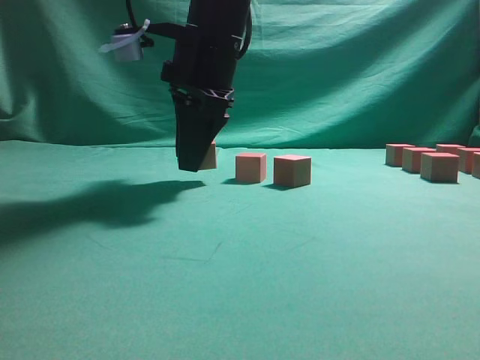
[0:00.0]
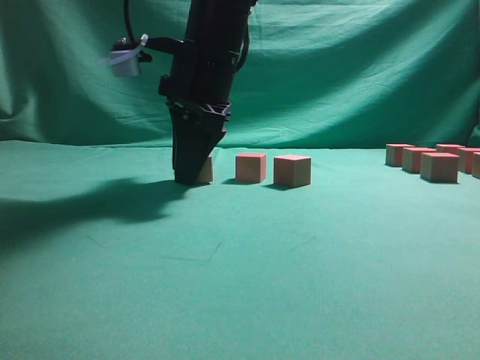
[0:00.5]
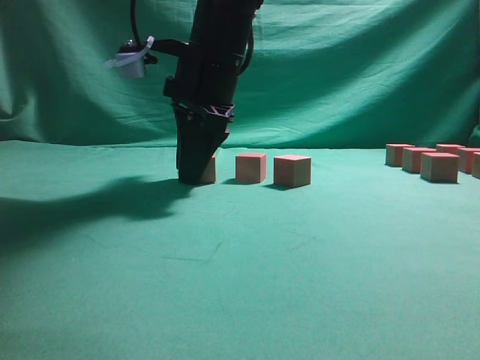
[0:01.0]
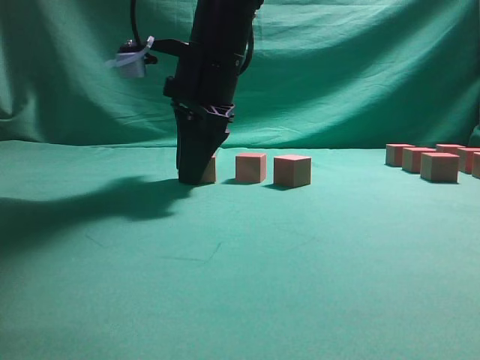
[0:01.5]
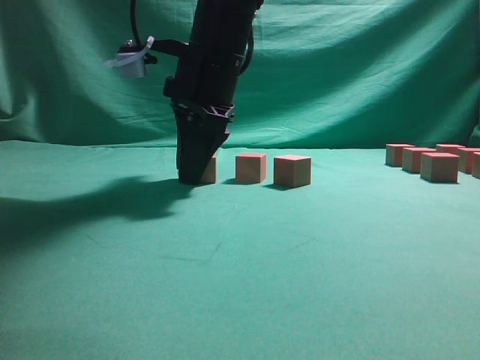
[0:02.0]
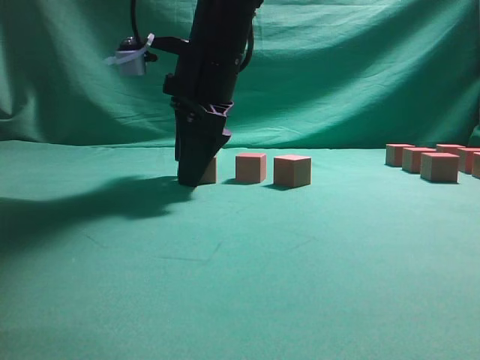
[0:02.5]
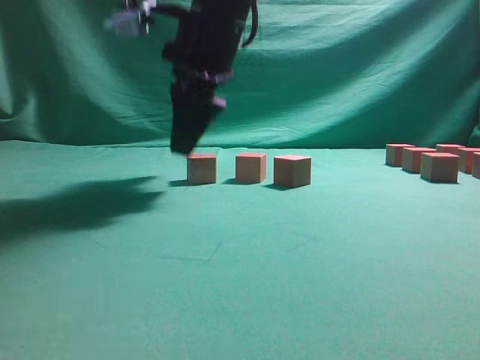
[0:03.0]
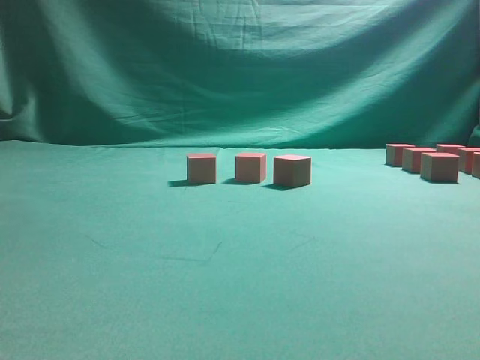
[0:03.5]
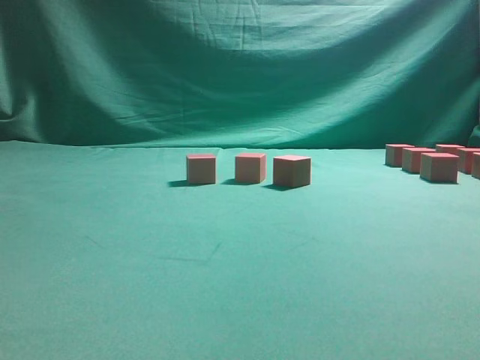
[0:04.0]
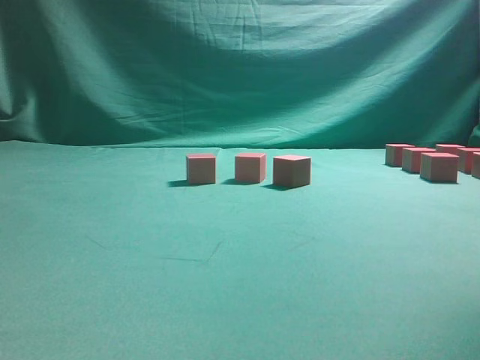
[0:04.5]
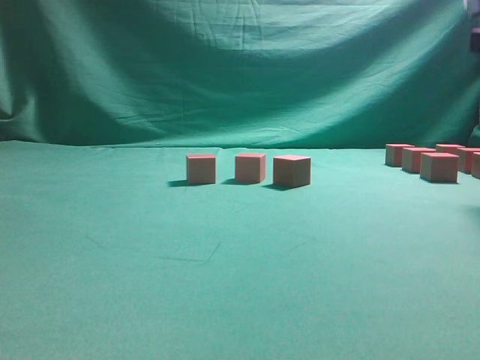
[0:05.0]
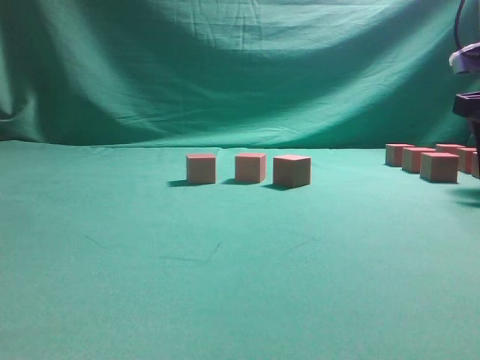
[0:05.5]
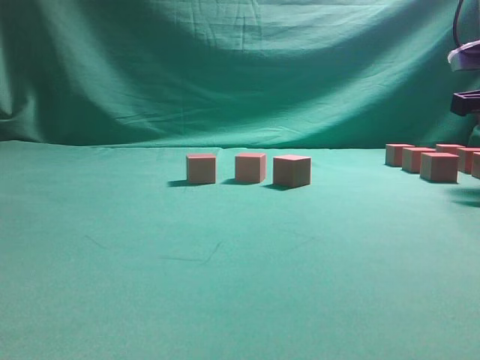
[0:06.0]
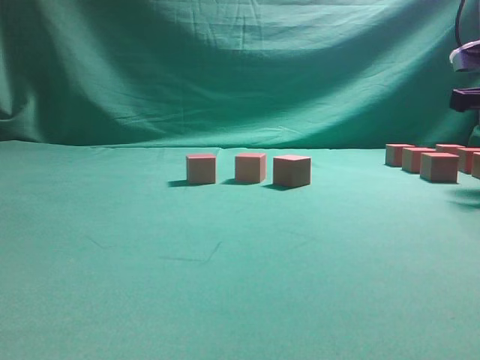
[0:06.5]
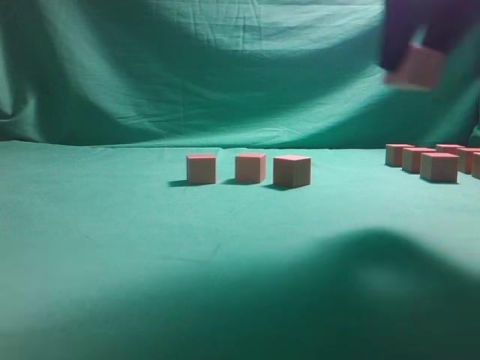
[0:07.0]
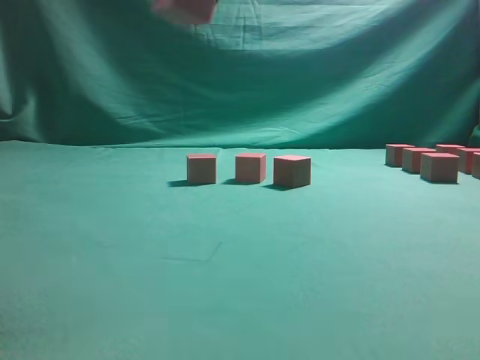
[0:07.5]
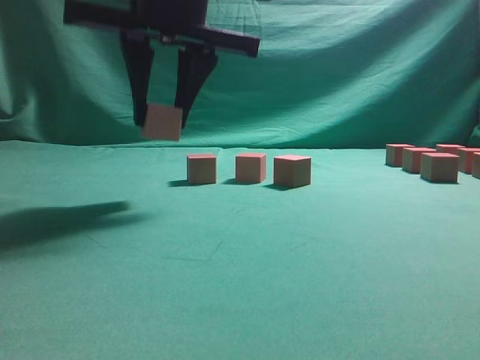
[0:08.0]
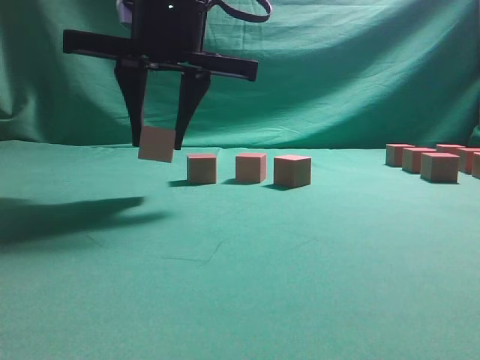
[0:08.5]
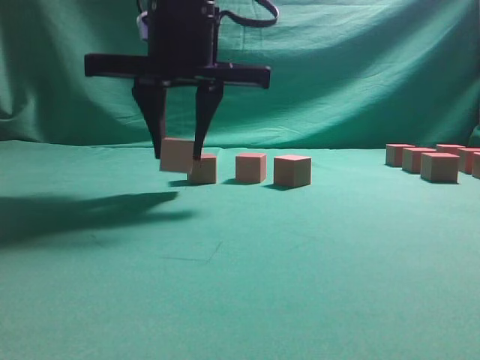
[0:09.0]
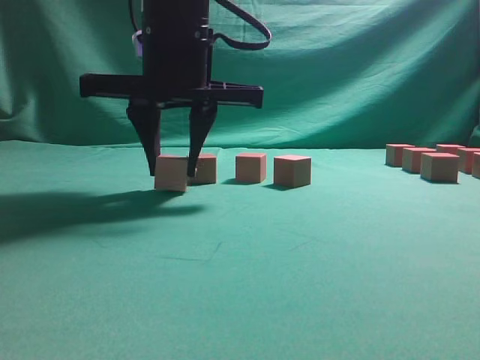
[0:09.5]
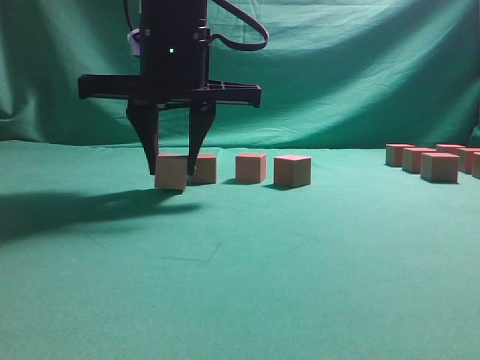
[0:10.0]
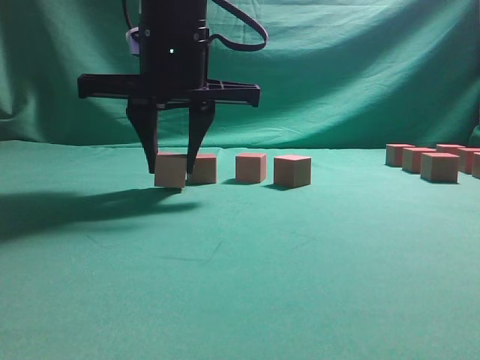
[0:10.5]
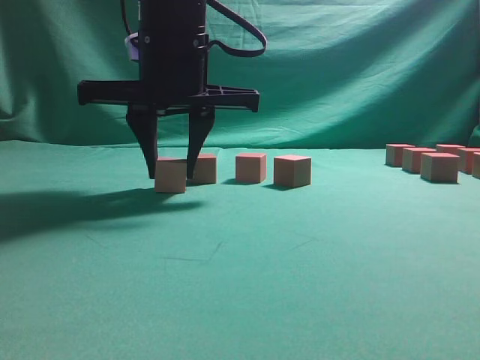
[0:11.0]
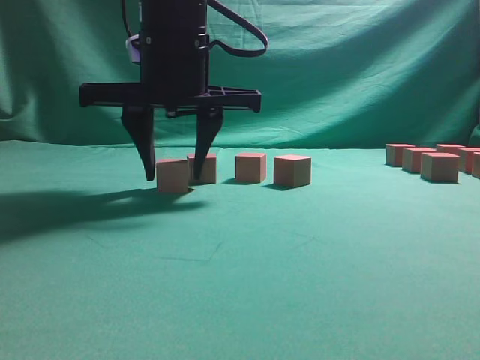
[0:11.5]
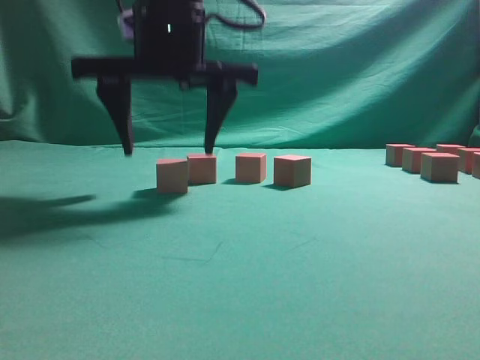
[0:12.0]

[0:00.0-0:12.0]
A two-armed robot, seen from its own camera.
Task of the whole recording: pick up the multiple cubes in two columns one by one and place them in another position on the table.
Step, 0:00.0 to 0:03.0: Place the block at the correct position to assemble the letter S.
Step, 0:03.5 to 0:06.5: Pick up the block on the table.
0:00.0 to 0:02.0: There are only small adjustments of the grippers.
0:02.0 to 0:04.0: The right gripper moves upward and to the right, about 30 cm, and opens its fingers.
0:04.0 to 0:06.0: The right gripper travels downward and to the right by about 35 cm.
0:06.0 to 0:08.0: The right gripper shifts some 35 cm to the left.
0:10.0 to 0:12.0: The right gripper opens its fingers.

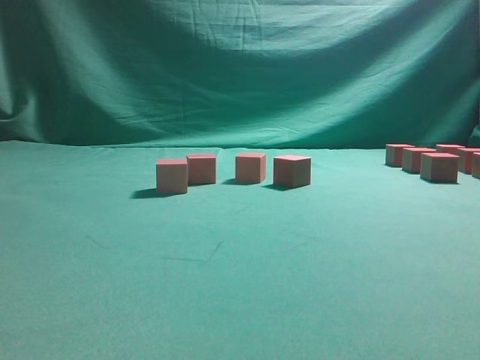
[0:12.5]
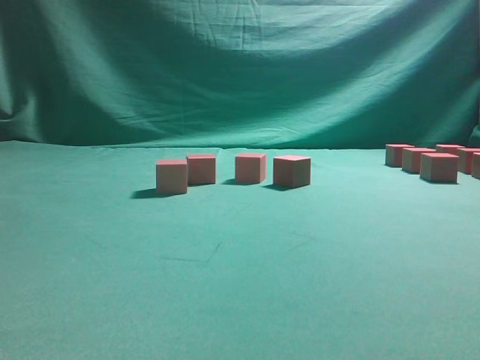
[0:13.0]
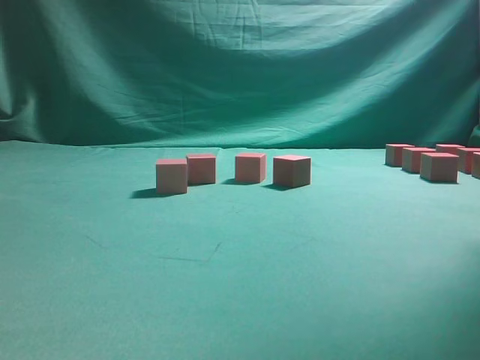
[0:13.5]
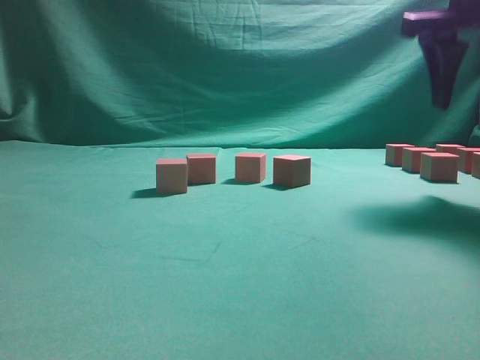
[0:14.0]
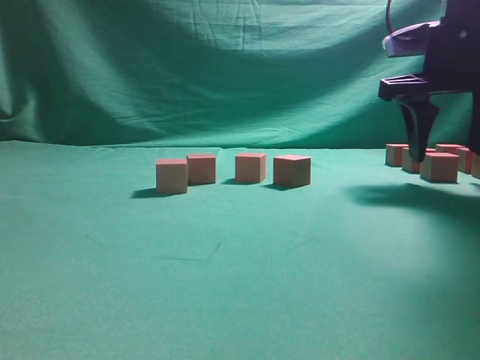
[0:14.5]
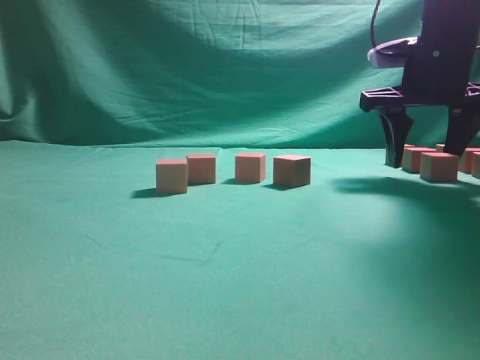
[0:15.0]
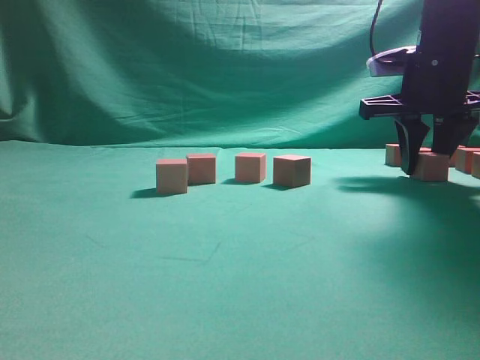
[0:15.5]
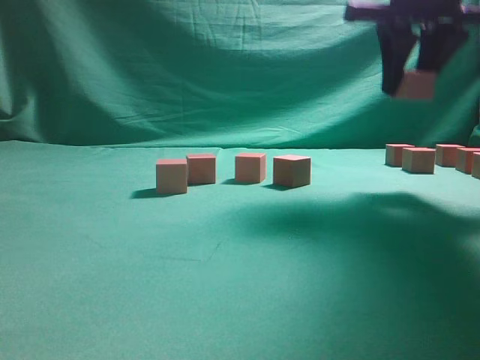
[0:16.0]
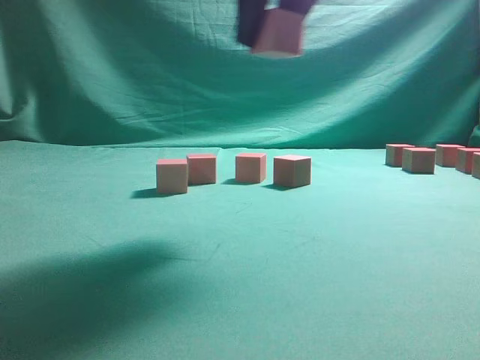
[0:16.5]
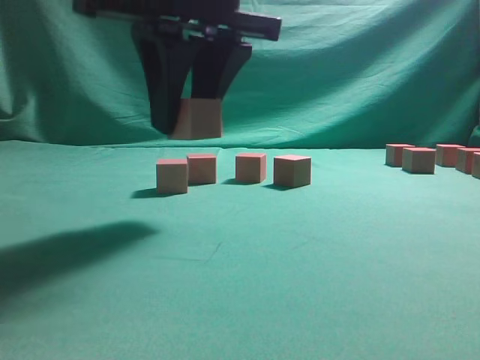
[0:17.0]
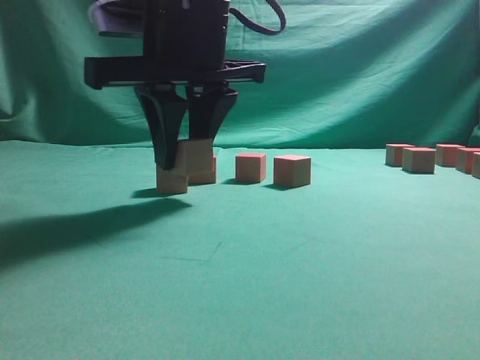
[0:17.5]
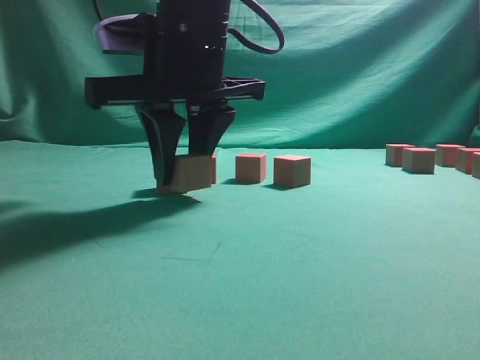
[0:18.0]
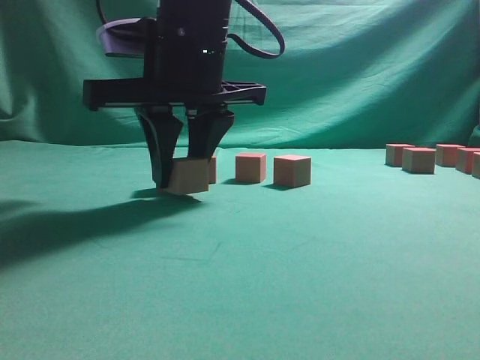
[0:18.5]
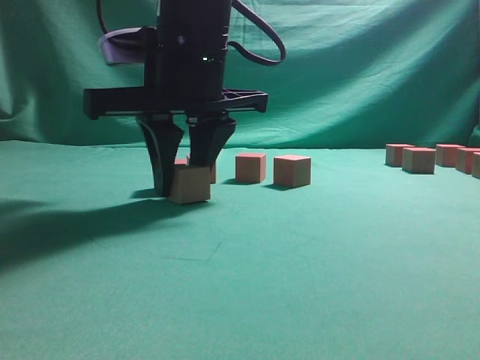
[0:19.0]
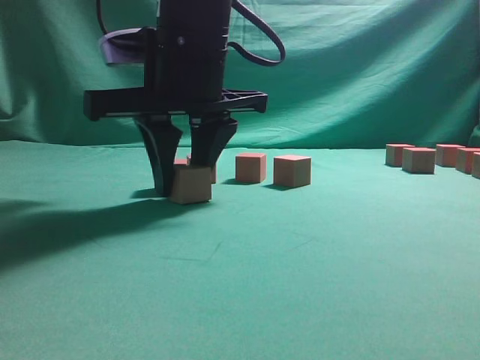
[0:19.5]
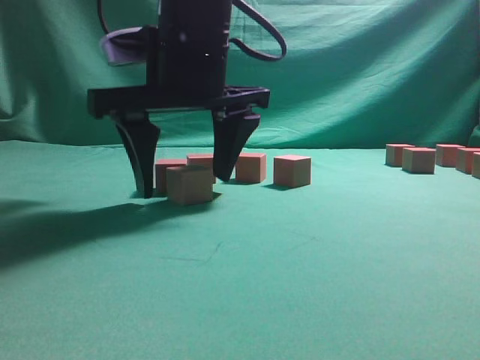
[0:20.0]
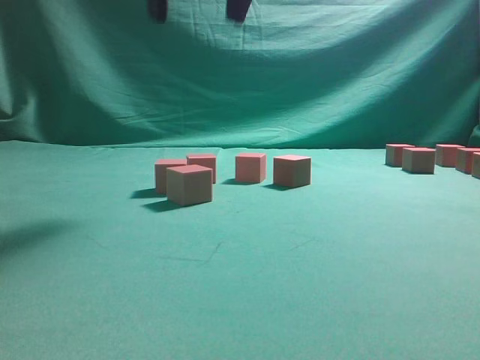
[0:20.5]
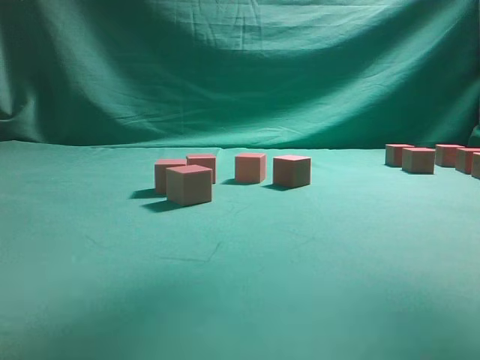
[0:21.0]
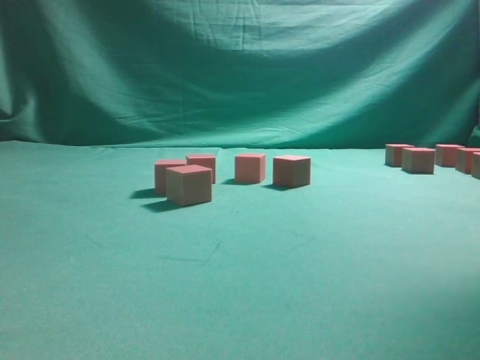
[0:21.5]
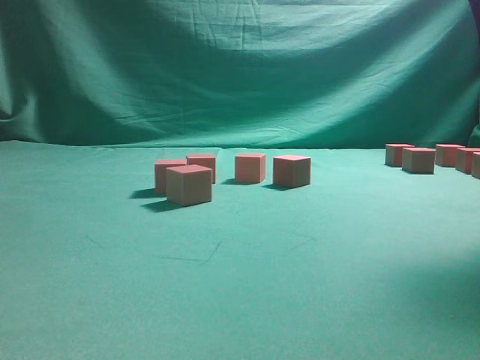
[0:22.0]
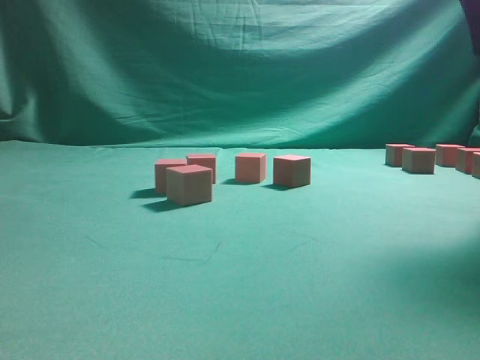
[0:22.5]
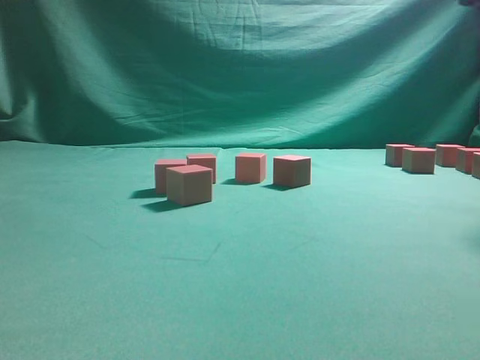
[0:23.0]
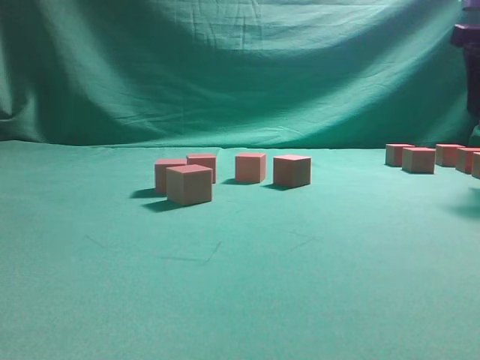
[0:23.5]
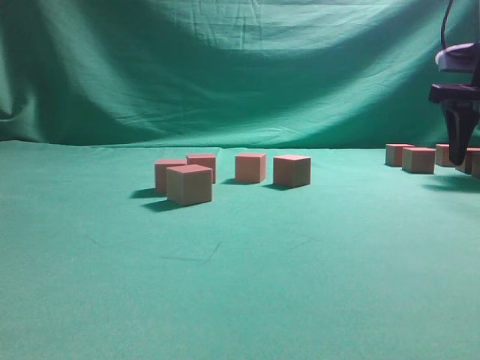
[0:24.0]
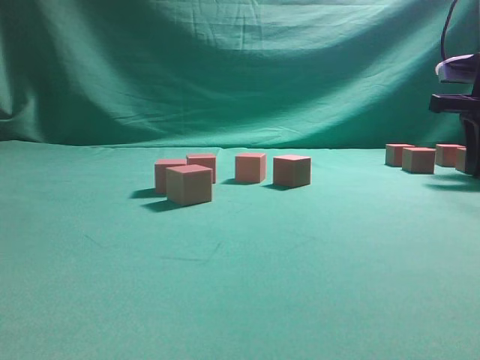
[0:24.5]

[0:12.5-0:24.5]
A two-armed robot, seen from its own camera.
Task of the whole recording: pick up the multiple cubes in two columns one by one and place them in another position on the table.
Step, 0:12.5 to 0:16.0: Pick up the block on the table.
Step, 0:16.5 to 0:20.0: Place the block at the correct position to assemble the letter S.
0:12.5 to 0:14.5: The right gripper shifts roughly 30 cm to the right and downward.
0:14.5 to 0:16.5: The right gripper shifts approximately 25 cm to the left, backward and upward, and closes its fingers.
0:16.5 to 0:18.5: The right gripper moves downward and to the left, about 15 cm.
0:18.5 to 0:20.5: The right gripper is displaced upward by some 15 cm, and opens its fingers.
0:20.5 to 0:22.5: The right gripper travels to the right by approximately 25 cm.
0:22.5 to 0:24.5: The right gripper heads downward, forward and to the right, covering some 20 cm, and closes up.

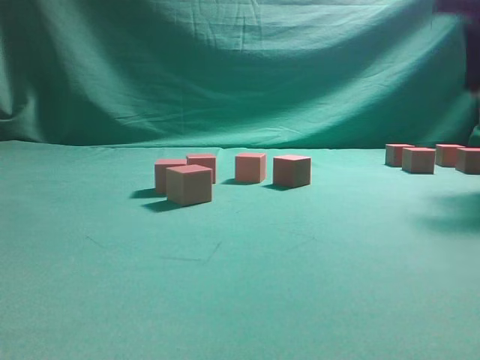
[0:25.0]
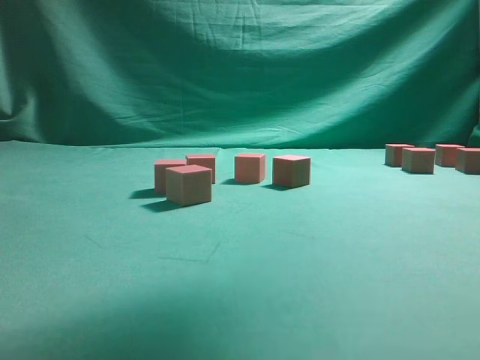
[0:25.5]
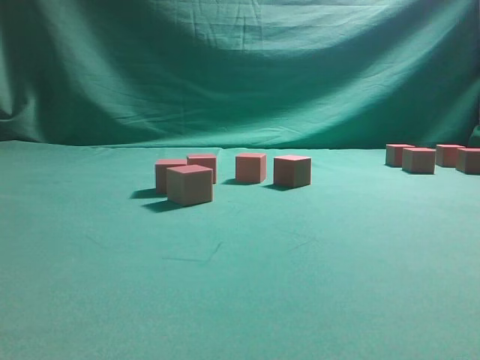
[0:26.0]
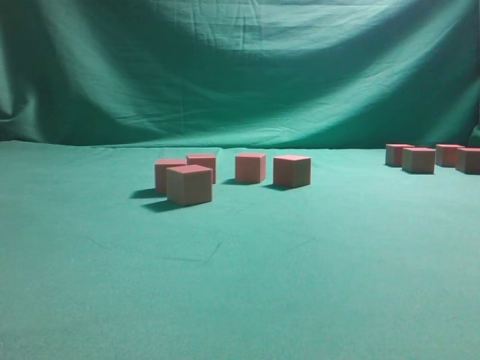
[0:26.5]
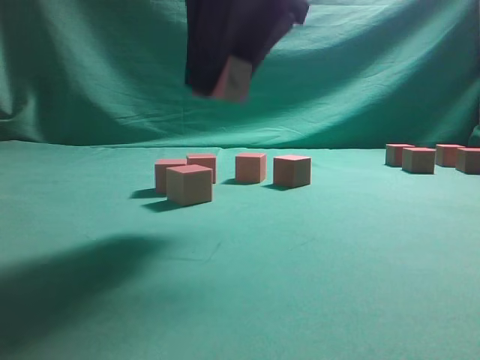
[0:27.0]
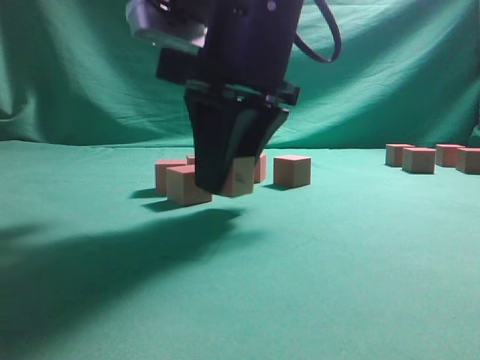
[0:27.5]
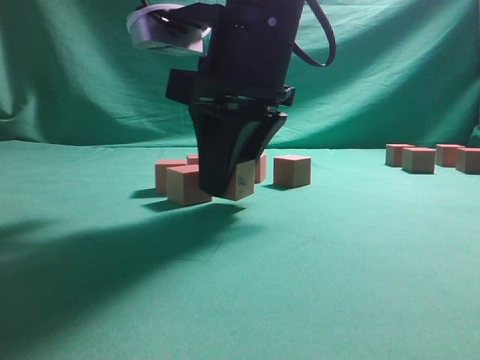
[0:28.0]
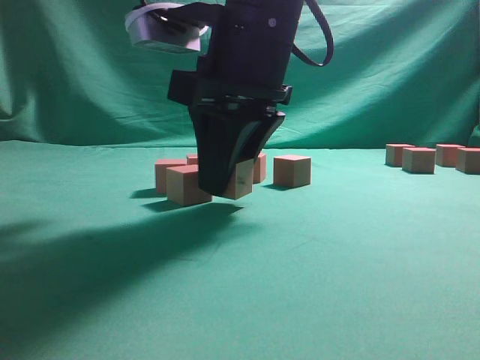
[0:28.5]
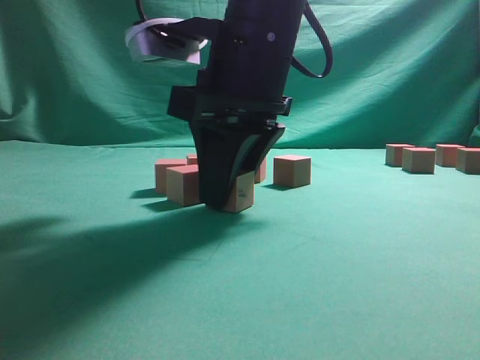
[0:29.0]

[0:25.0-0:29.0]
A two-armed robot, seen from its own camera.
Task of the whole recording: pick up the multiple cubes in two columns one by one and place them in another position on the table.
0:25.0 to 0:27.0: The right gripper travels to the left and backward by some 30 cm.
0:27.0 to 0:29.0: The right gripper goes roughly 10 cm downward.
